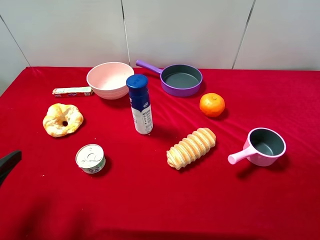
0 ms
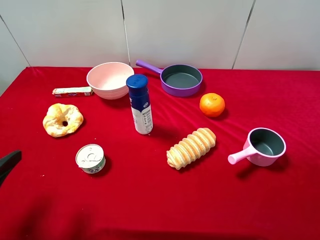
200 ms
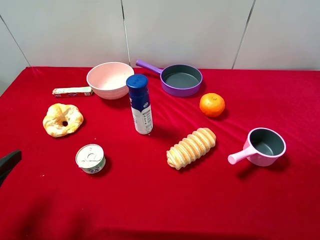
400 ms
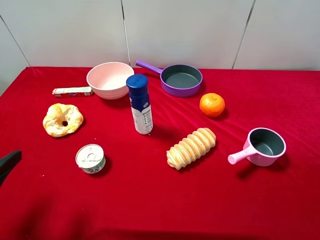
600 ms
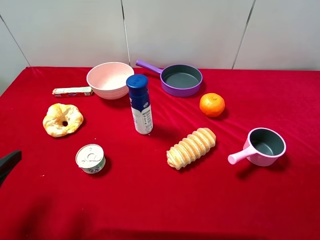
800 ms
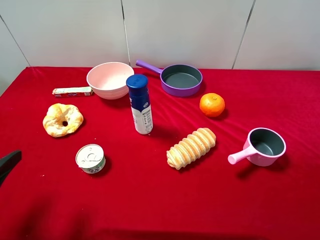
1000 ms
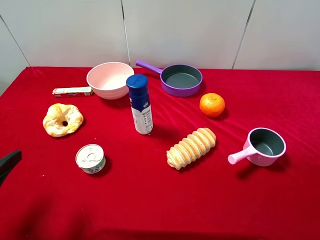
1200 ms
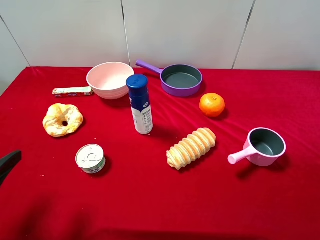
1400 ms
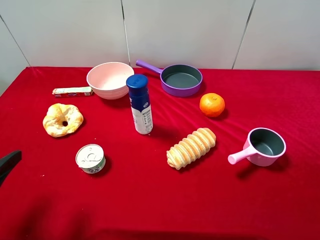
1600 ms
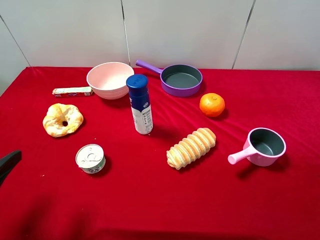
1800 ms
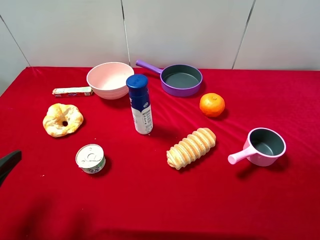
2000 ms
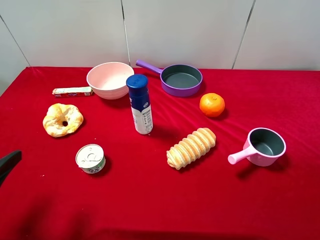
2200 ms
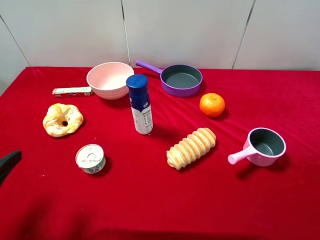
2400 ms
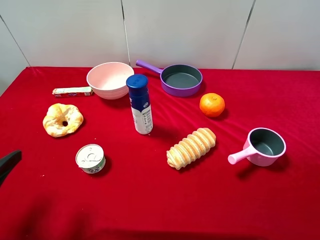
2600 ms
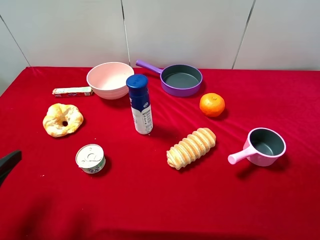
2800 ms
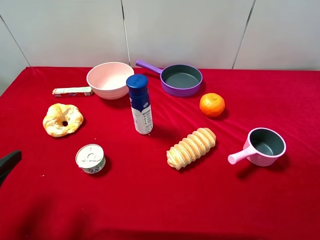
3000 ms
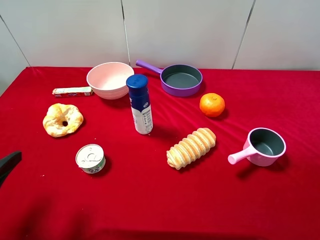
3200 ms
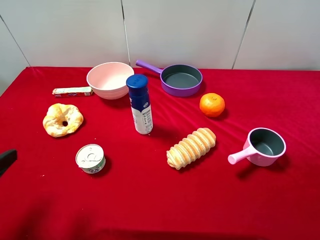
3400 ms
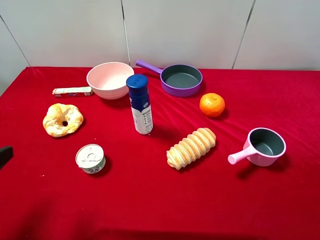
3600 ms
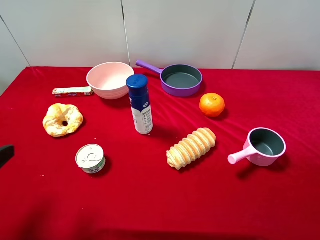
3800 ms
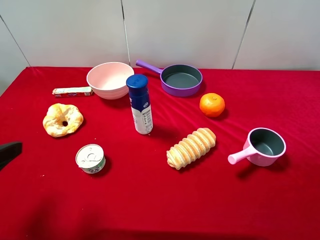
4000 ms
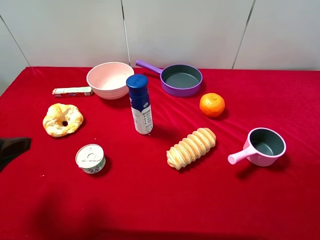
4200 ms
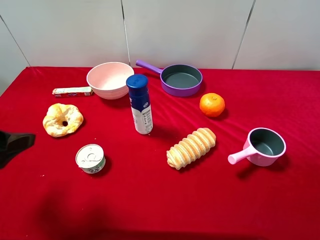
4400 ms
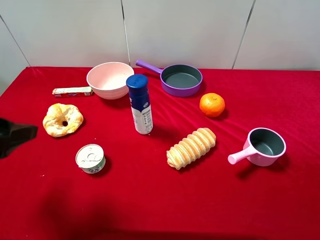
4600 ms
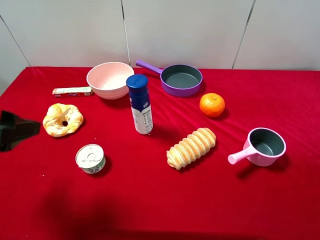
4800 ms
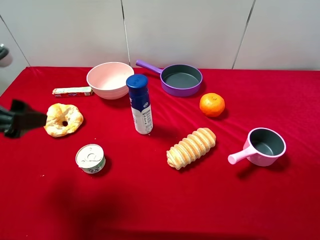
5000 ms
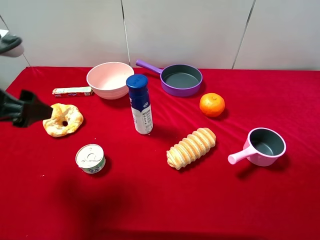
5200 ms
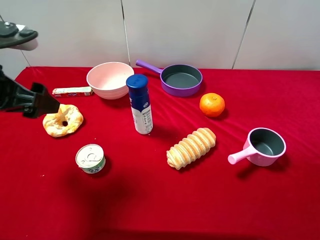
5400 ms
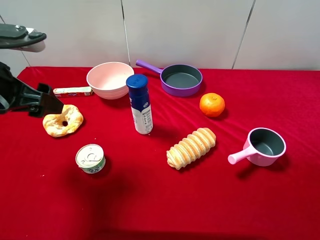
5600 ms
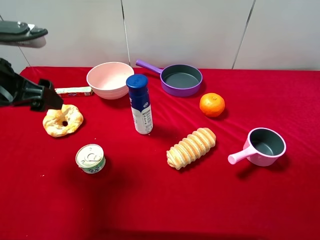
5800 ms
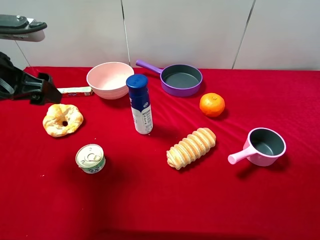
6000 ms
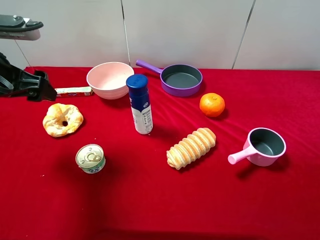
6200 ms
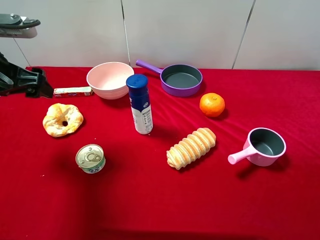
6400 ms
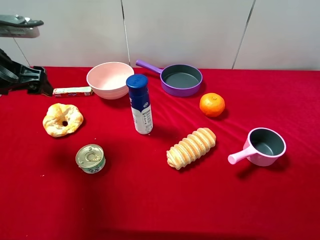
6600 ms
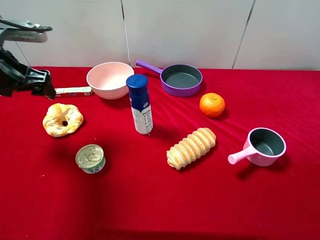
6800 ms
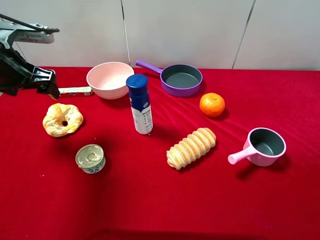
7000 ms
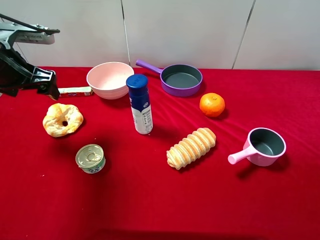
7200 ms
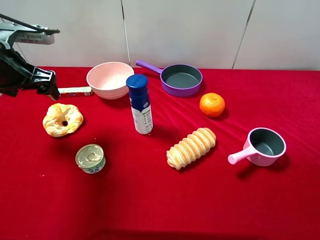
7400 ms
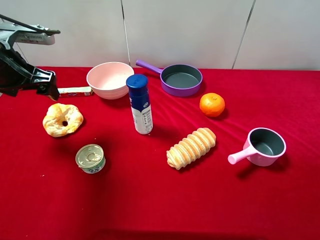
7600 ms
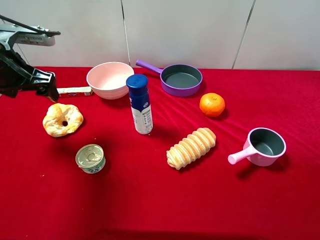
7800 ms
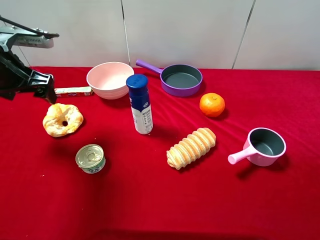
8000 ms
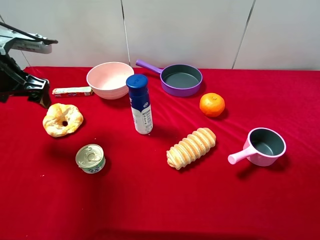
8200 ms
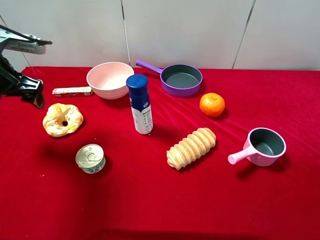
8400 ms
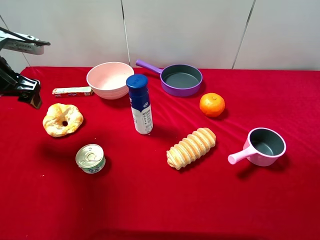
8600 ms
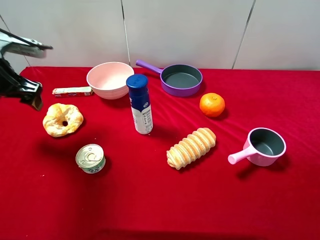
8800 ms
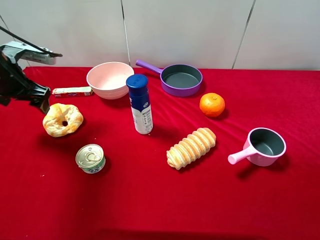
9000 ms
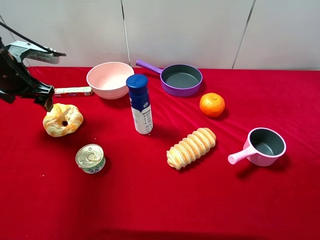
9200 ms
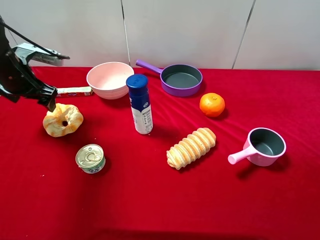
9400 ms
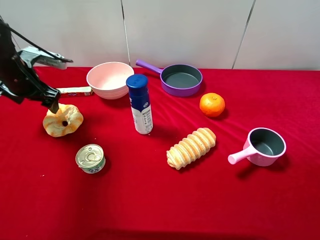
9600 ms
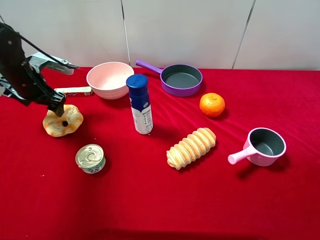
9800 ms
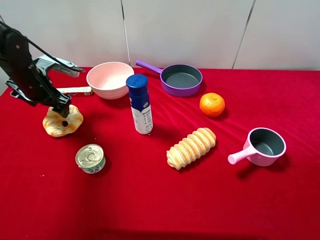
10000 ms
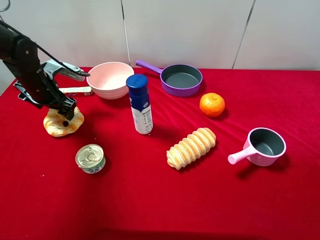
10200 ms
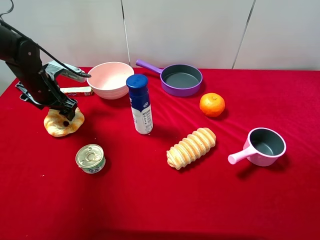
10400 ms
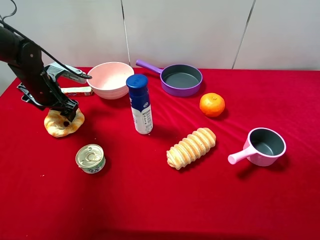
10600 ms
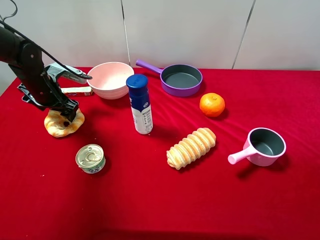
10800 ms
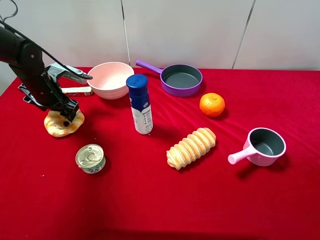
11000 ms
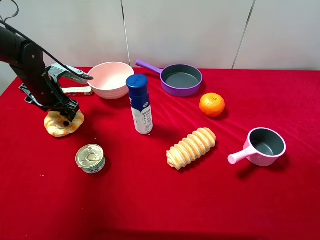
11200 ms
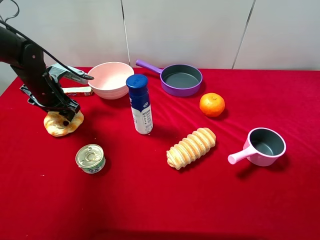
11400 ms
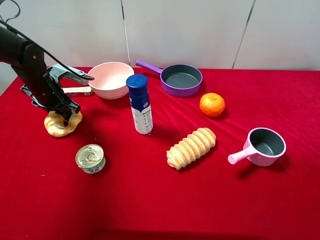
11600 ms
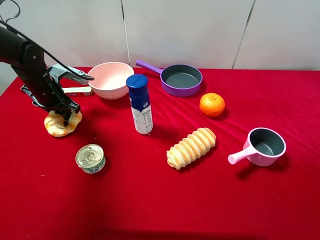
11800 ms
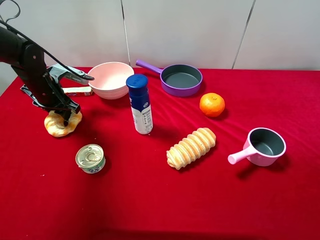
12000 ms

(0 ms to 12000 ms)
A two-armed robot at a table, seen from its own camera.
Task of the whole recording: pick up an item with a gripper and place it in a random container on the desktop.
0 ms - 3000 ms: Both grippers stay put.
3000 ms - 4400 ms: The left gripper is displaced forward by roughly 5 cm.
4400 ms - 6000 ms: The left gripper travels forward by approximately 10 cm.
6000 ms - 7600 ms: The left gripper goes roughly 5 cm forward.
7600 ms - 9000 ms: The left gripper changes place by about 5 cm.
9000 ms - 10400 ms: The left gripper is displaced downward by about 5 cm.
10400 ms - 12000 ms: The left gripper closes.

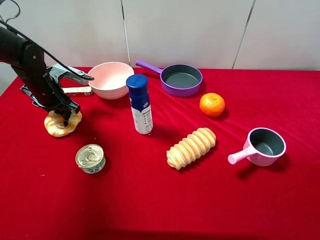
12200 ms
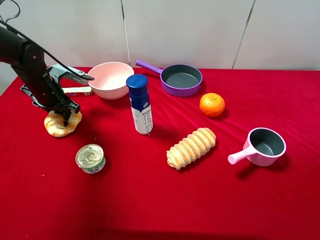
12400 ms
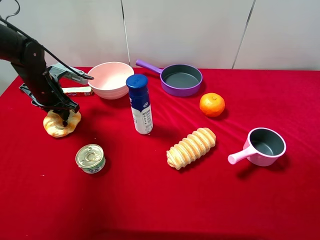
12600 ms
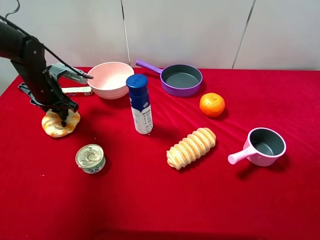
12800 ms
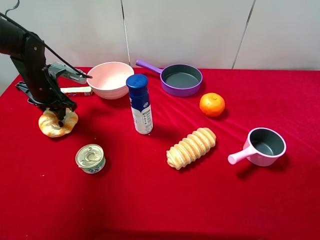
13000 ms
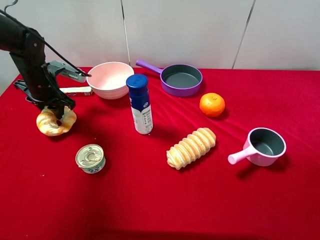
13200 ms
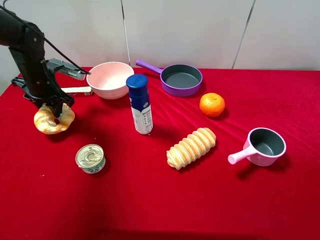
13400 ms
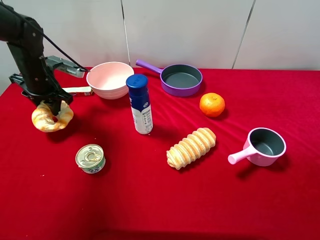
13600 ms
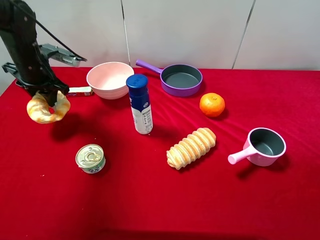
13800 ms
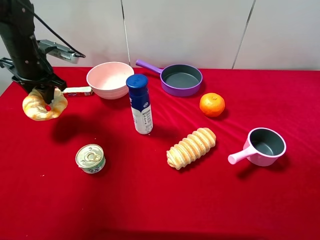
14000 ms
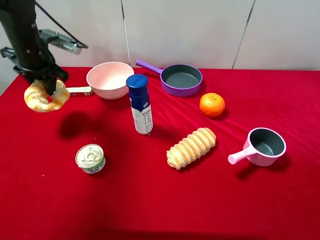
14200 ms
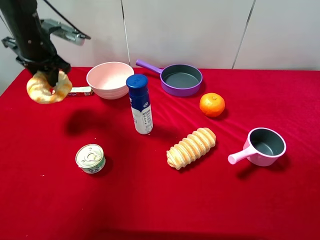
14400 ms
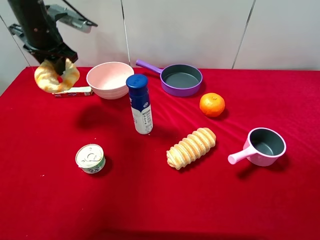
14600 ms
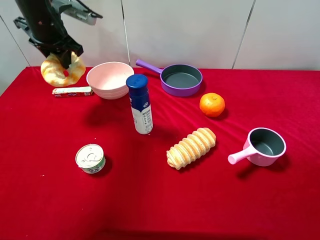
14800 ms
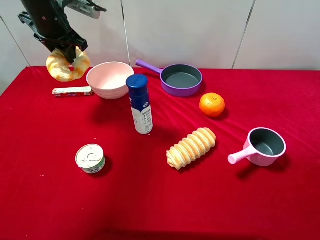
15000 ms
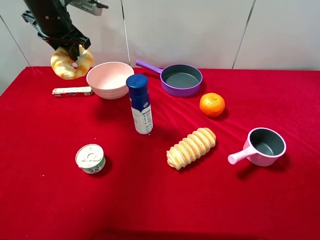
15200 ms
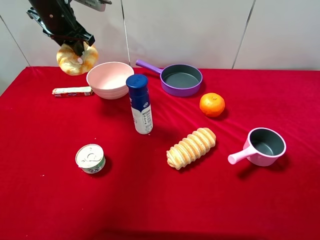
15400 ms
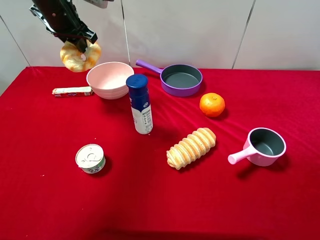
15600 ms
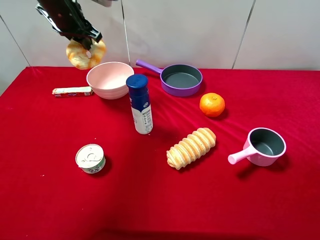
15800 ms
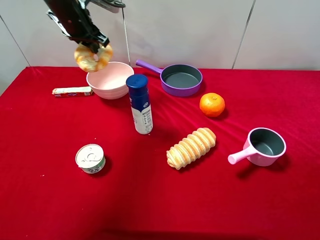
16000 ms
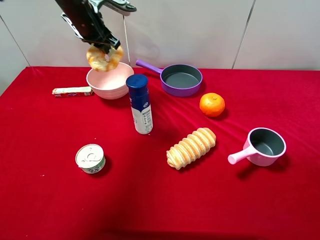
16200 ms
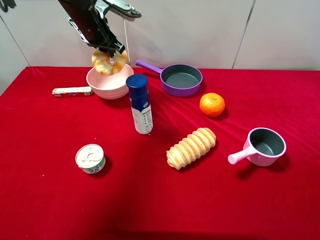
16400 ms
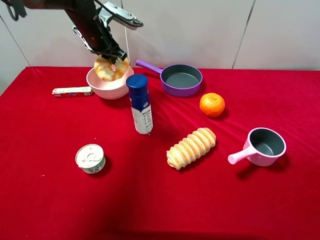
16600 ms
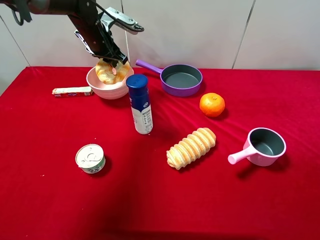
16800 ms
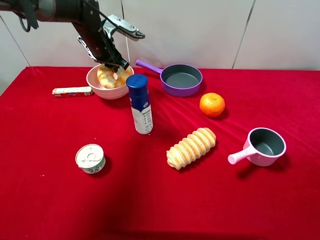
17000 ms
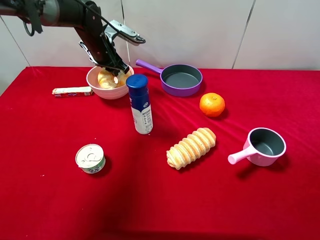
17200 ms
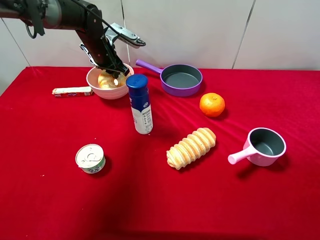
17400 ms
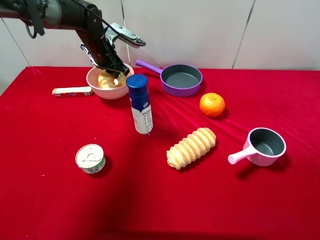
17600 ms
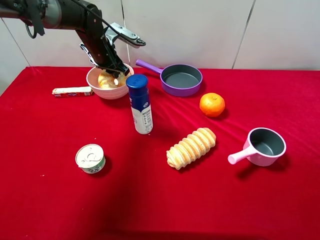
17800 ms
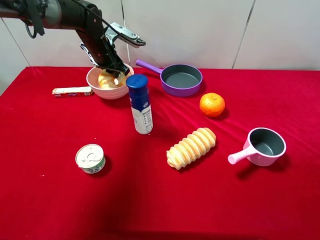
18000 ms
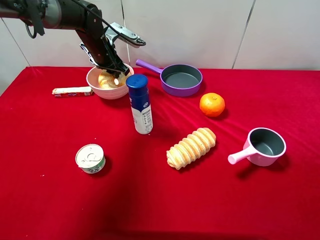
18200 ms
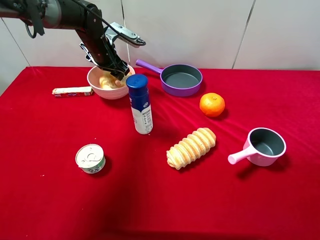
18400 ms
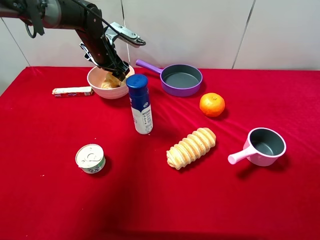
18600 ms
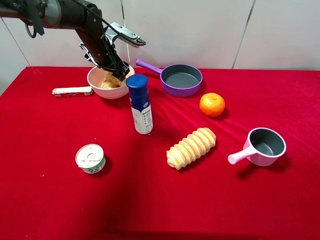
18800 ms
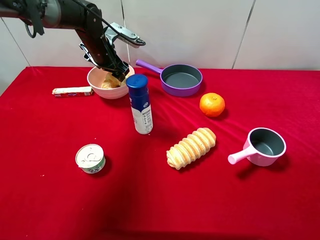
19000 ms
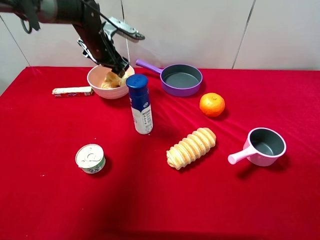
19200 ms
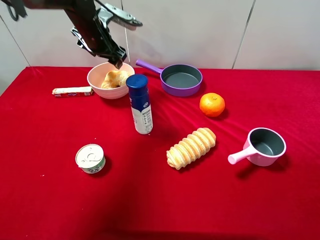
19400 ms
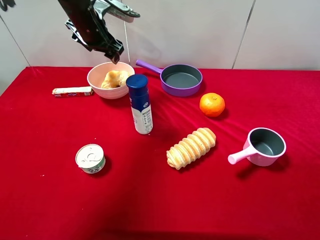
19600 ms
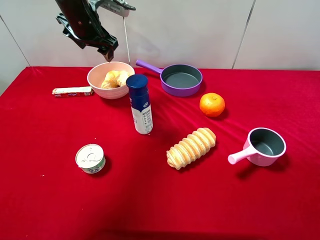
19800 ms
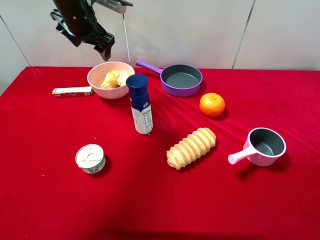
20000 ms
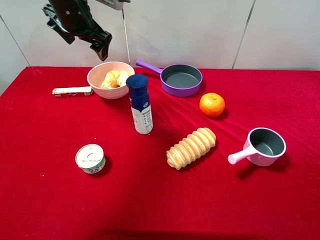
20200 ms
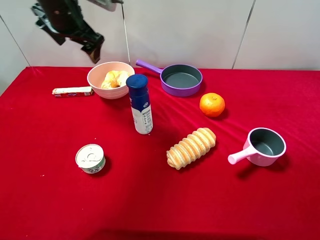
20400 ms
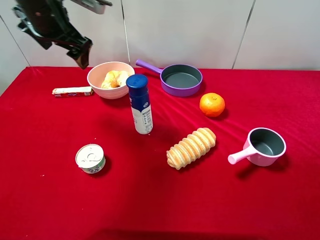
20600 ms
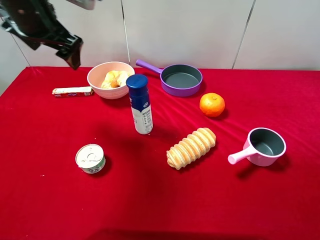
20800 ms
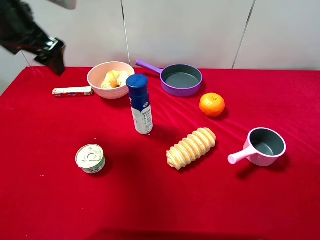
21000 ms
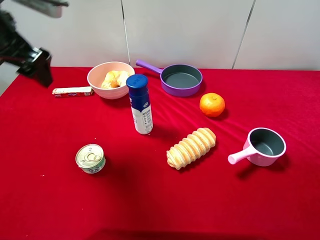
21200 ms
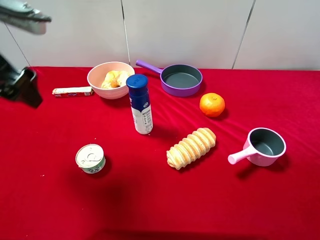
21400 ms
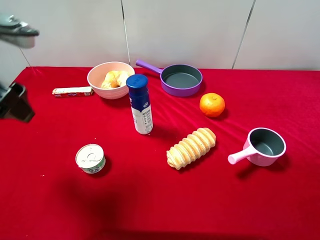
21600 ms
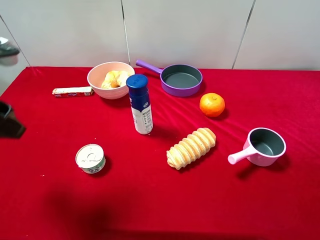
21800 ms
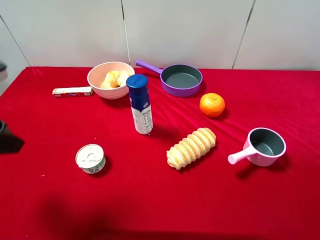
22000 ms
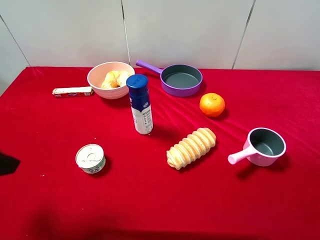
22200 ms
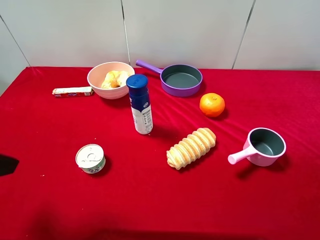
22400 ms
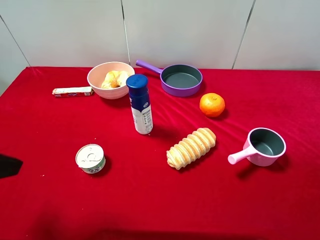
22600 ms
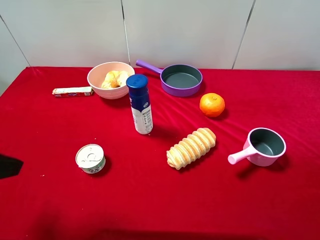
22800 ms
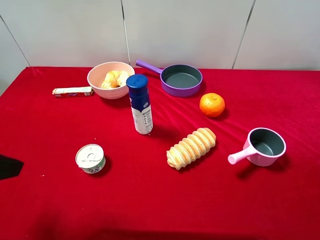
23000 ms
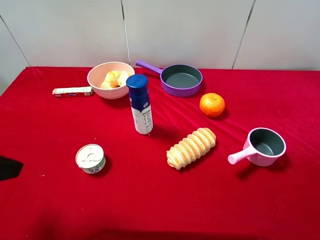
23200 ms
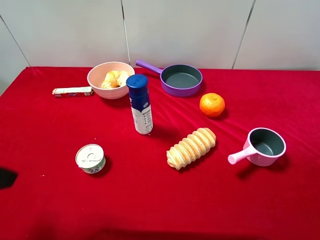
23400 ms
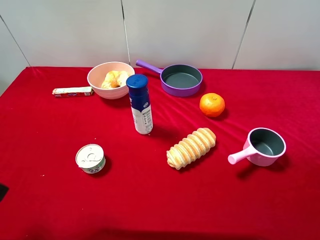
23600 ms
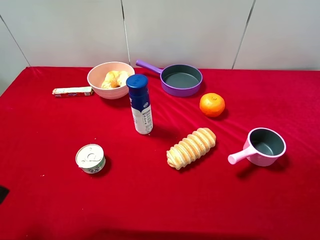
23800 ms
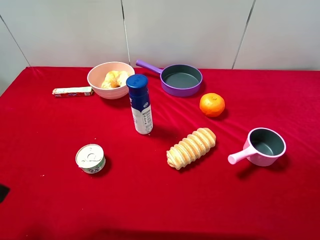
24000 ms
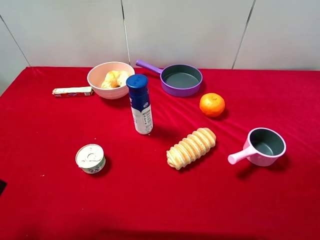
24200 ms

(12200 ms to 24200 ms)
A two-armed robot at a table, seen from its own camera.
Task of the whole recording: pick up an item with a gripper and place it in a random container on the desktop.
12200 ms - 13800 ms: The left gripper goes roughly 5 cm upward.
13800 ms - 15200 ms: The left gripper moves upward and to the right, approximately 10 cm.
15200 ms - 16600 ms: The left gripper heads to the right and downward, covering some 10 cm.
16600 ms - 18200 ms: The grippers move only a little.
18200 ms - 19800 ms: The left gripper heads upward, covering about 10 cm, and opens its fingers.
19800 ms - 21200 ms: The left gripper travels backward by approximately 20 cm.
21200 ms - 22600 ms: The left gripper heads backward, covering some 15 cm.
